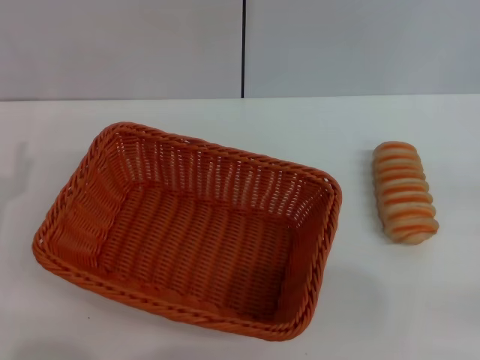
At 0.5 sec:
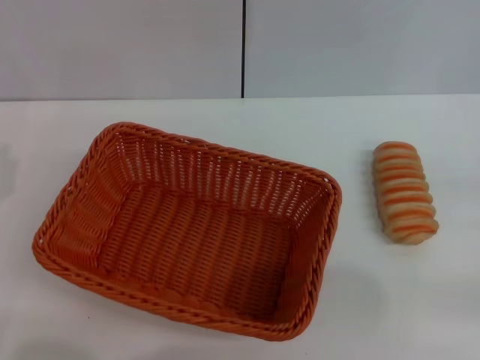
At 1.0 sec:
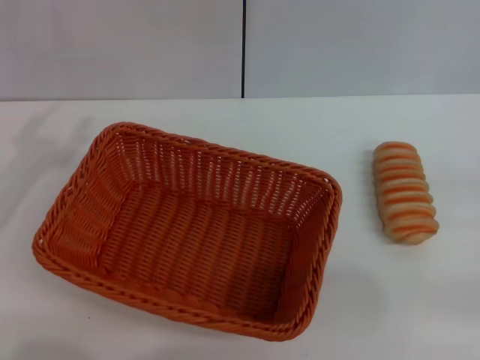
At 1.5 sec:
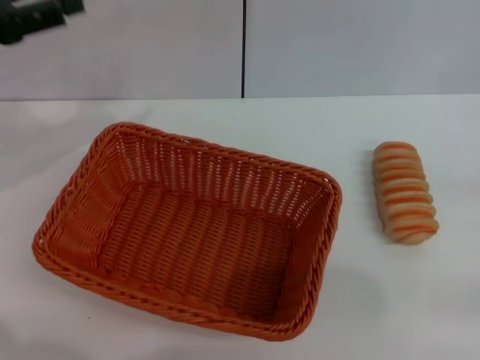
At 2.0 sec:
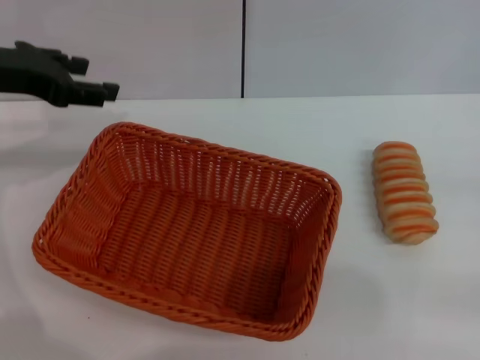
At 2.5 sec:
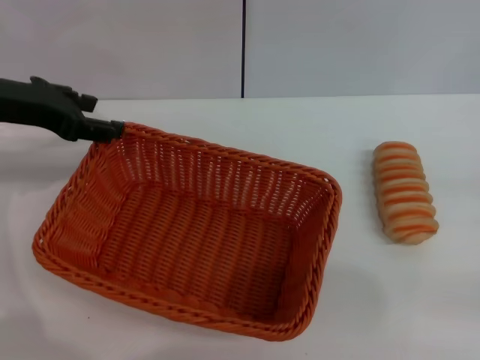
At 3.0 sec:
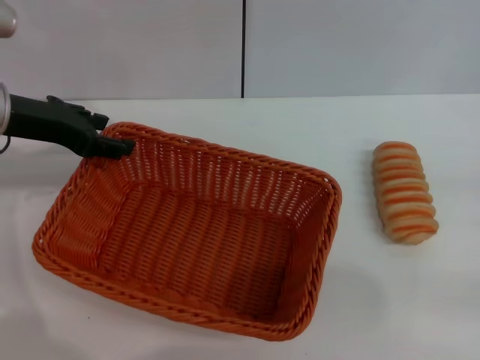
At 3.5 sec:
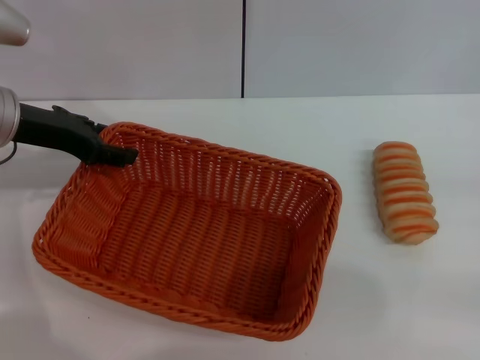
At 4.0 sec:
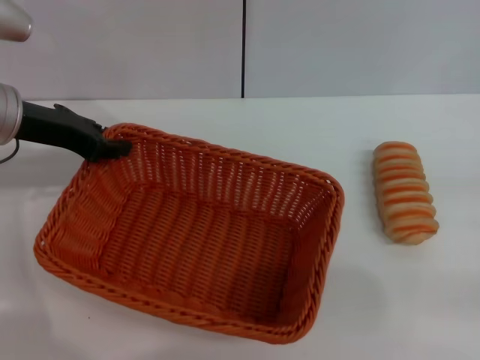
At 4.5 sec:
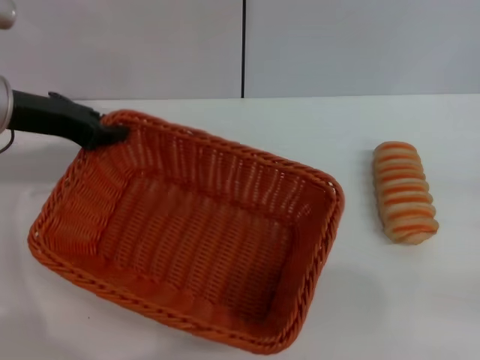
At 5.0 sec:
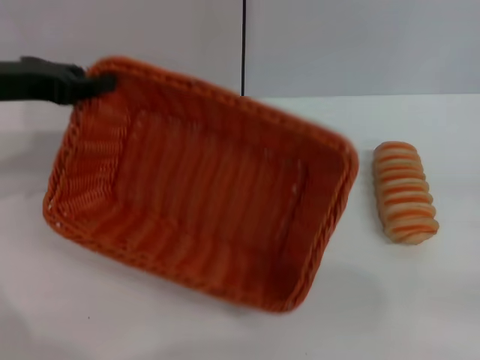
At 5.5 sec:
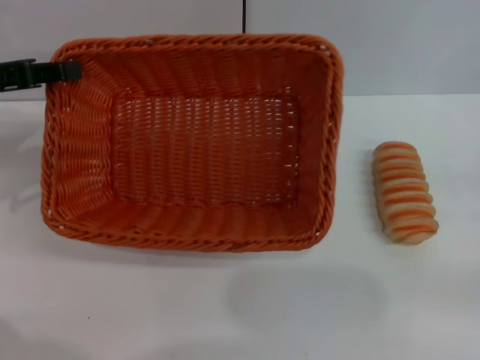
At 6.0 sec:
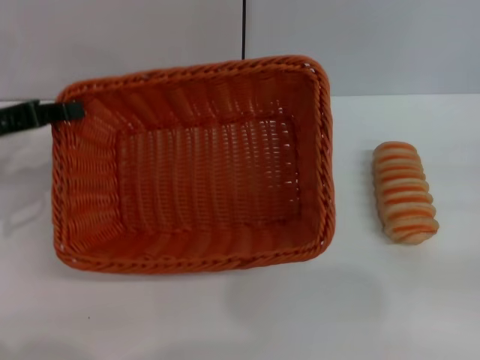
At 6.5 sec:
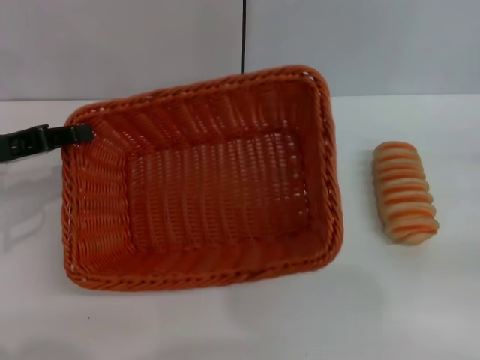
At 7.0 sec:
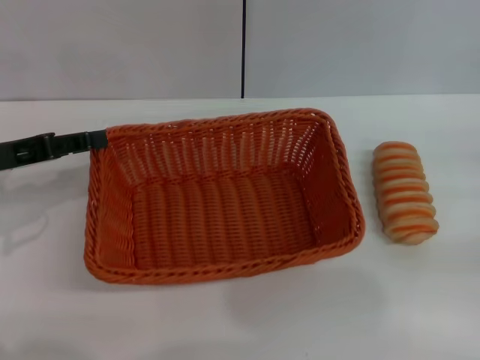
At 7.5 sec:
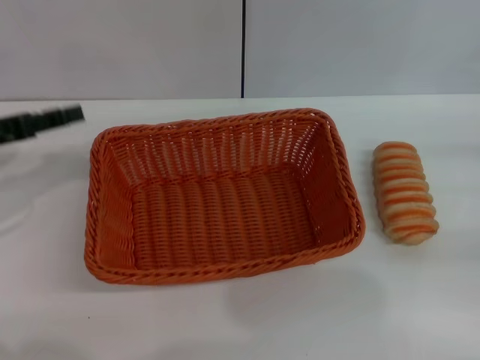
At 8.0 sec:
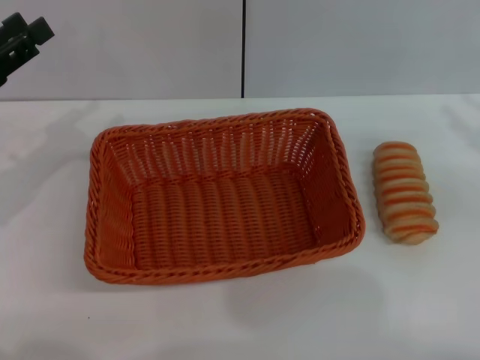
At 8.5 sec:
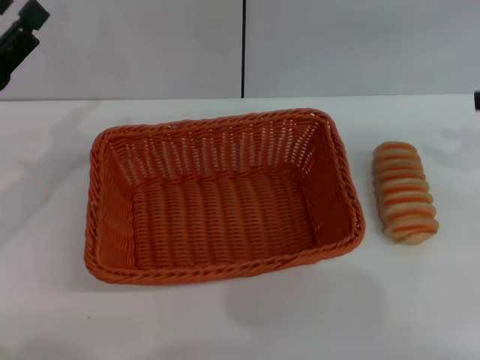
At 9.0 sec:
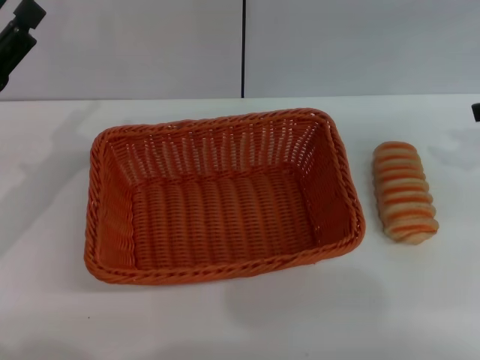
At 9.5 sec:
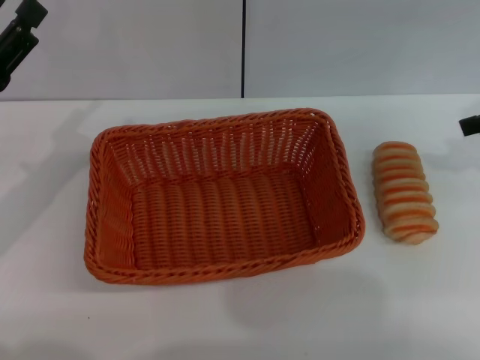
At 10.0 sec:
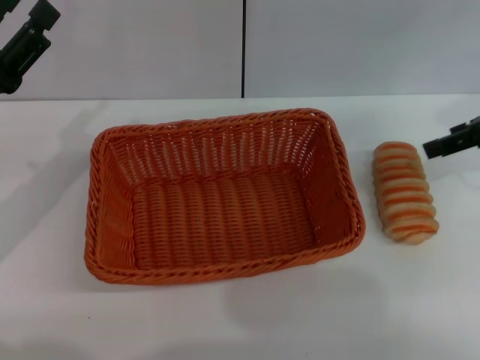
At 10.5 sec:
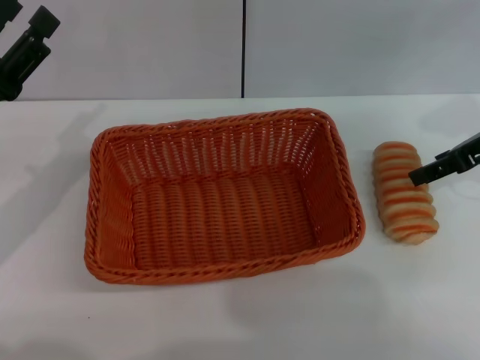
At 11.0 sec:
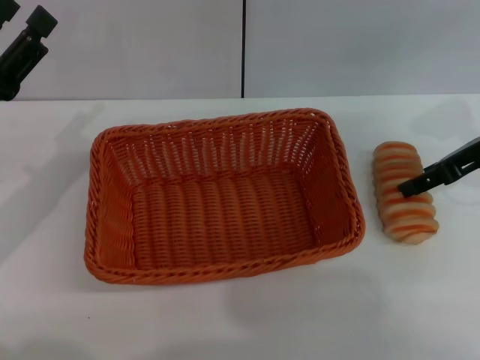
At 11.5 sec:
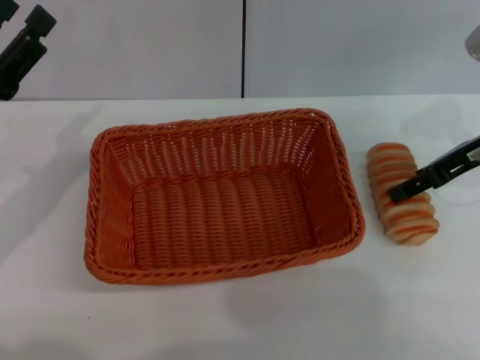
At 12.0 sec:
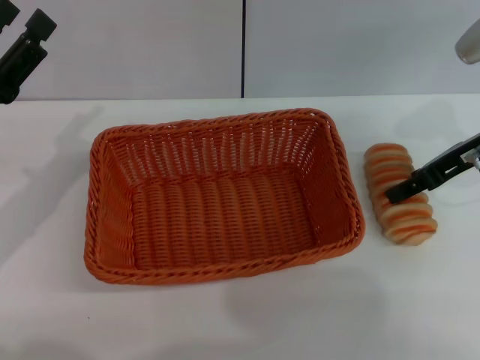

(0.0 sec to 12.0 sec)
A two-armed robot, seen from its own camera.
Step, 0.0 sec - 5.0 sec: Pick up the light basket with the left gripper.
Step, 5.5 sec - 7.5 sec: Place the light basket in the center of view with the left gripper.
0.0 sec - 2.0 sec: The left gripper is displaced forward and upward by about 20 cm.
2.0 sec - 4.0 sec: The left gripper shifts about 5 cm downward.
4.0 sec - 6.0 sec: The left gripper travels to the left and backward by roughly 10 cm, and closes its fingers.
6.0 sec - 8.0 sec: The right gripper goes about 10 cm upward and forward; the left gripper opens its fingers.
8.0 sec - 10.0 sec: The right gripper heads to the left and forward, covering approximately 10 cm.
10.0 sec - 12.0 sec: The right gripper travels downward by about 5 cm.

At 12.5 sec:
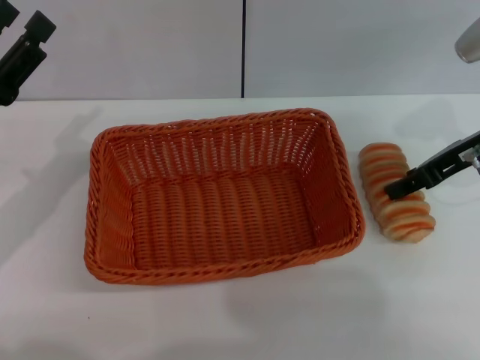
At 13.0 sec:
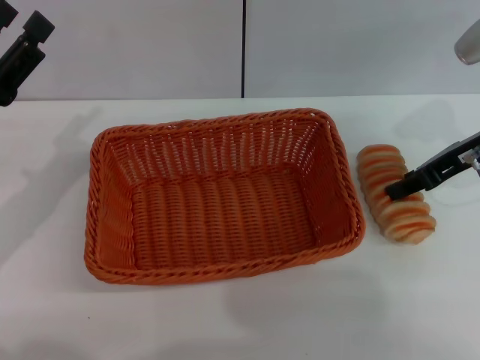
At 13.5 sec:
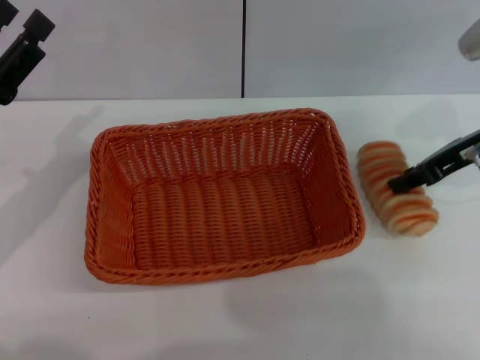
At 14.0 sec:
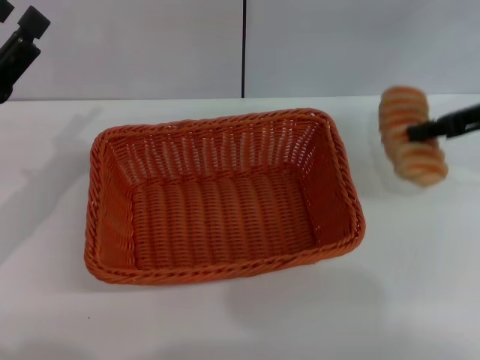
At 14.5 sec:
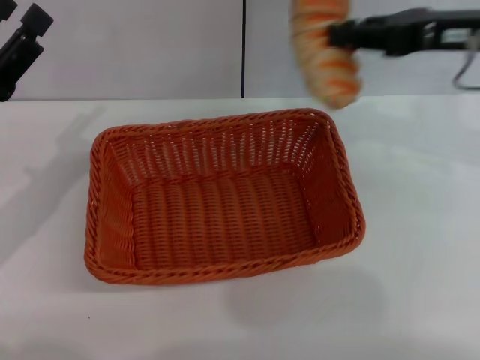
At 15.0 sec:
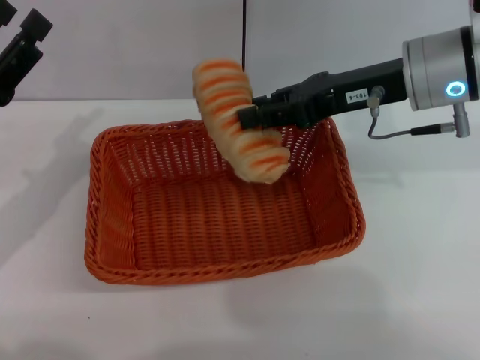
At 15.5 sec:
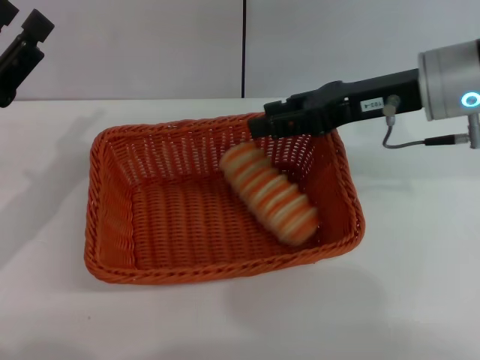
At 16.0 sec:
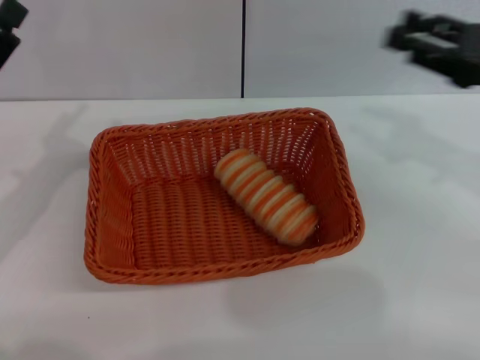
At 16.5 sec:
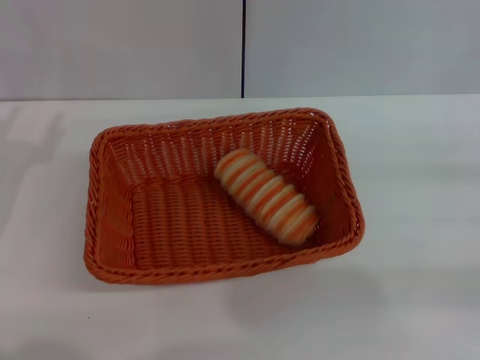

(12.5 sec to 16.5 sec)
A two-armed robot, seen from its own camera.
Step, 14.0 sec - 15.0 sec: Place the long bread into the light basket with the right gripper.
12.5 sec - 14.5 sec: The right gripper moves upward, some 10 cm, and closes its fingers.
14.5 sec - 16.5 sec: The right gripper heads to the right, backward and downward, covering roughly 25 cm, and opens.
